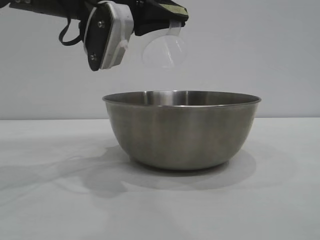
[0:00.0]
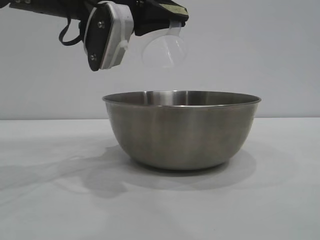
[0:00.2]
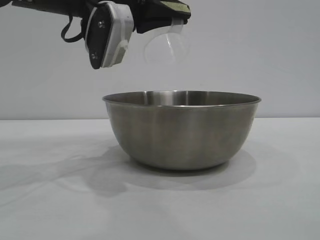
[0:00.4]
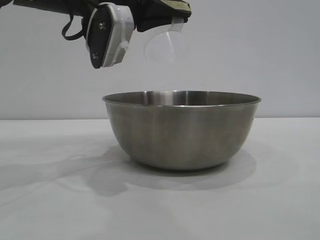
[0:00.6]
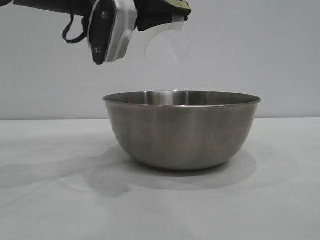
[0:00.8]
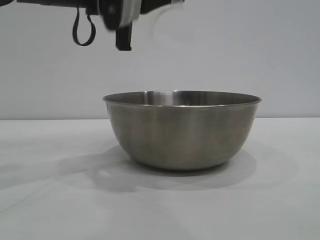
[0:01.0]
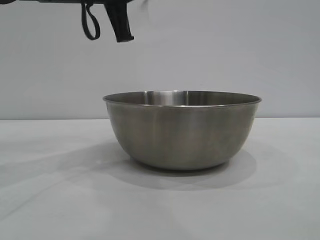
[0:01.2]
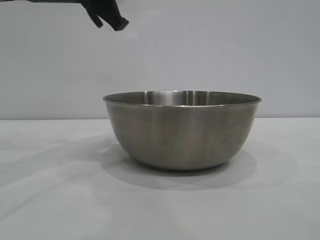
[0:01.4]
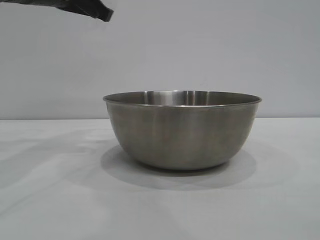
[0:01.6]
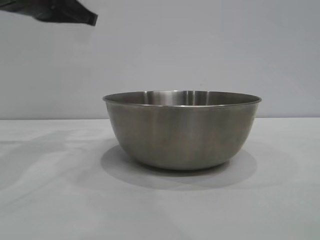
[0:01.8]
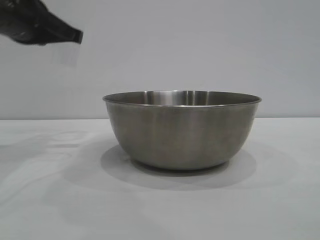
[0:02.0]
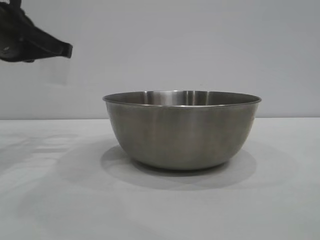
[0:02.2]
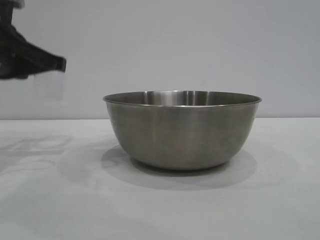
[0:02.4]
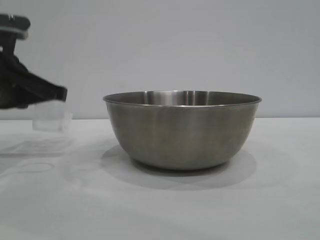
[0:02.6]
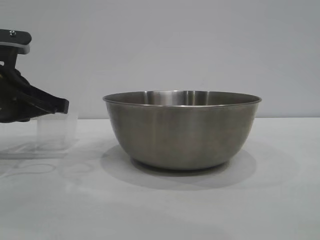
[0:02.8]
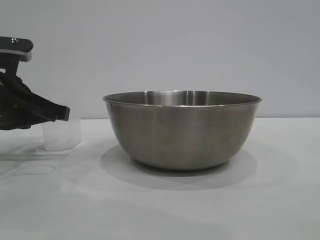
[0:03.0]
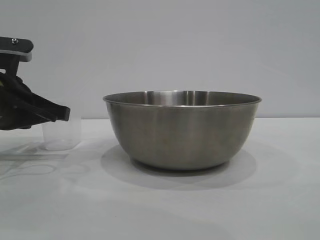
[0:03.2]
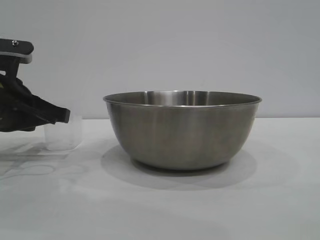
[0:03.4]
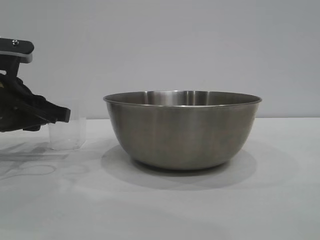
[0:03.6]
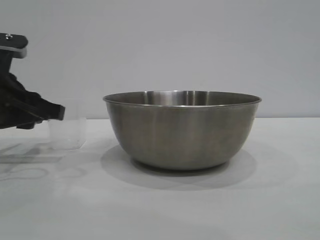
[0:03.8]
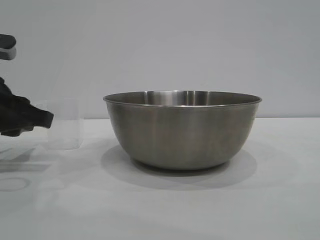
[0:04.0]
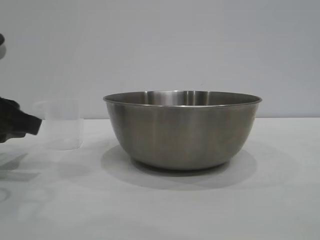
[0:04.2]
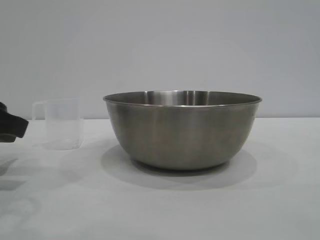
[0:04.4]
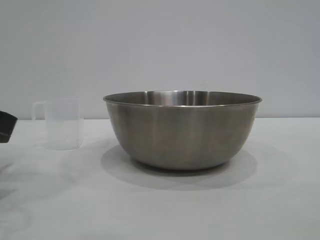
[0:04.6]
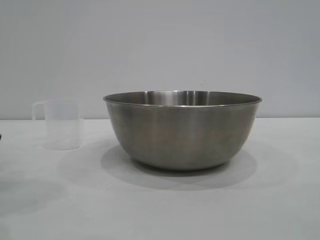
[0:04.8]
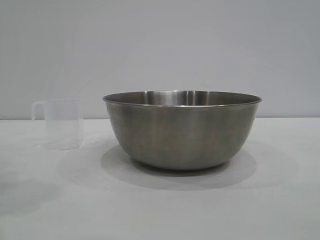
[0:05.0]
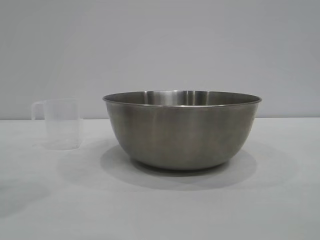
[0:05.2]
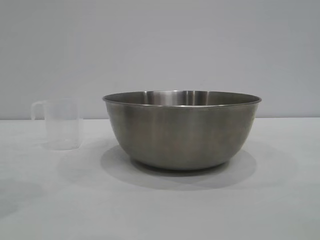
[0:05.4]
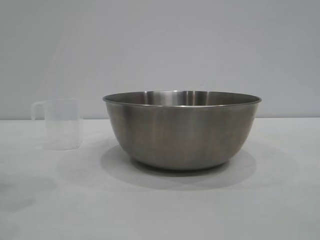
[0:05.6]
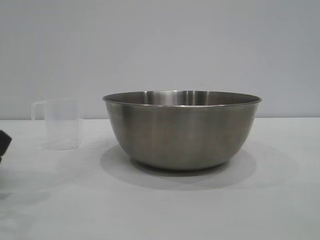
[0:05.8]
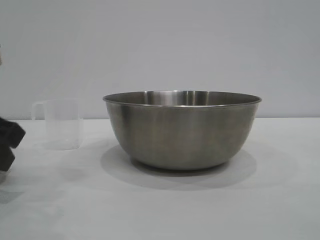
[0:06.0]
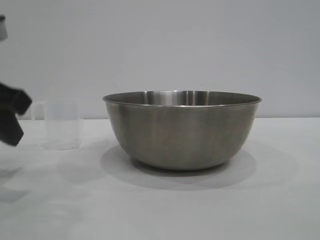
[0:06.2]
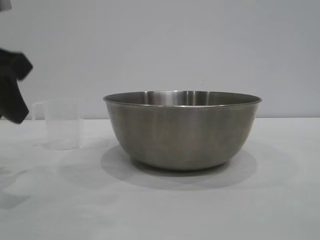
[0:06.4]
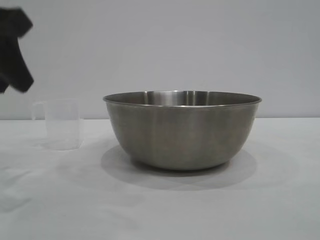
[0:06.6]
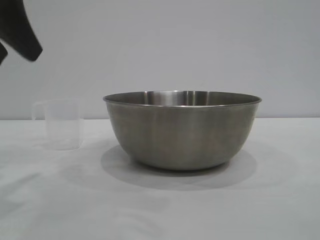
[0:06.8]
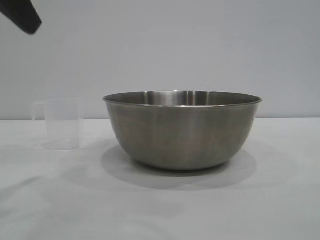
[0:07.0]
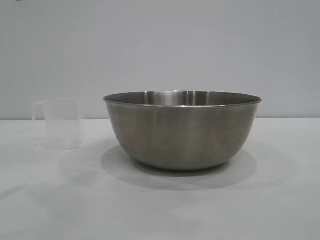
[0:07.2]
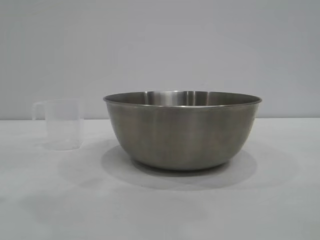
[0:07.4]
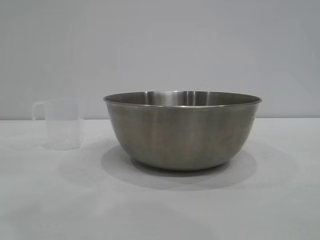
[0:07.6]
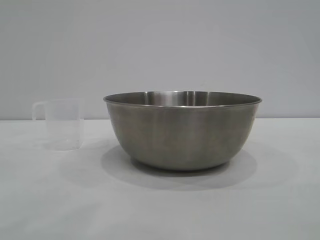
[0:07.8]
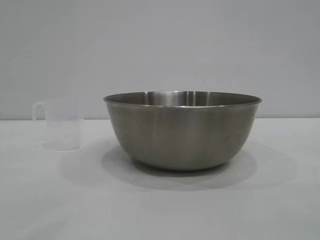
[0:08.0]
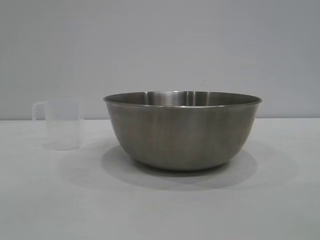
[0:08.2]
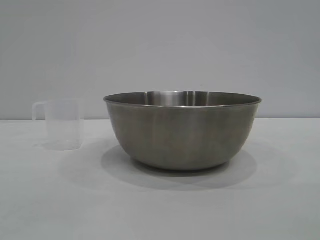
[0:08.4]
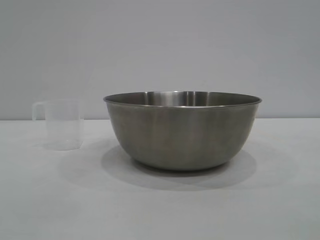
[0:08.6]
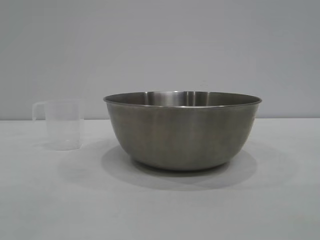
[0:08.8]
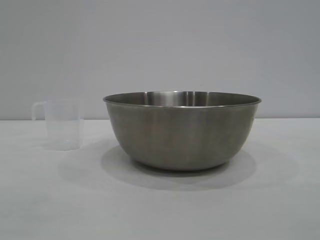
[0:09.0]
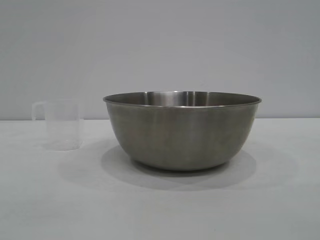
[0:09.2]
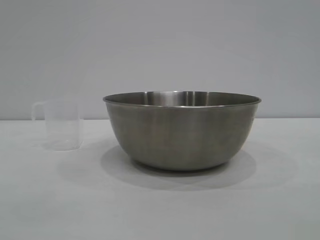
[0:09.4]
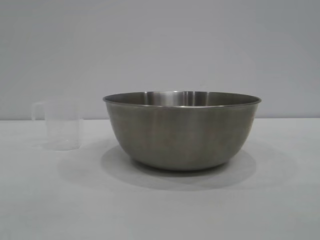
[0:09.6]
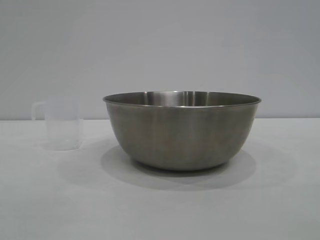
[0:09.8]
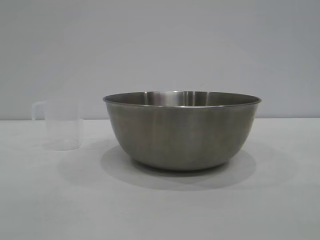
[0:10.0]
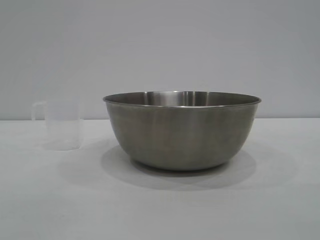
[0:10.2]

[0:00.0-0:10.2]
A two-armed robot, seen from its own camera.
Task of the whole recording: the right gripper grasp the rice container and place it in the center of the table, the left gripper grasp the rice scoop and pour the rice into the rice container.
Step, 0:01.2 to 0:03.8: Place the cup on the table with the left gripper.
